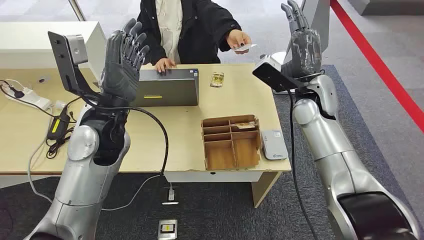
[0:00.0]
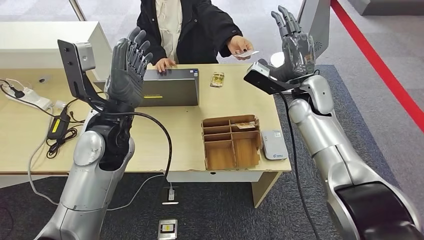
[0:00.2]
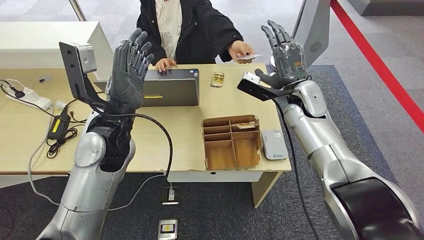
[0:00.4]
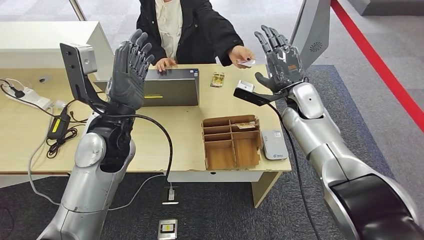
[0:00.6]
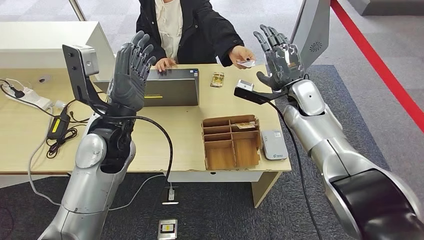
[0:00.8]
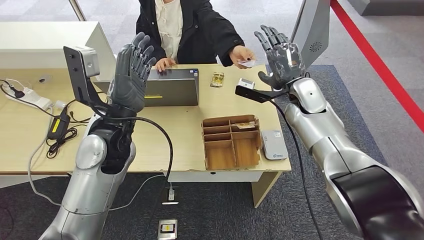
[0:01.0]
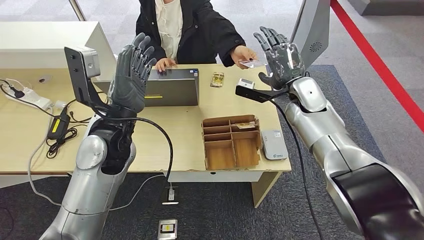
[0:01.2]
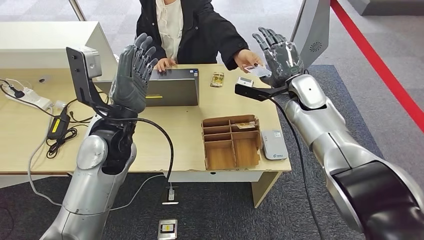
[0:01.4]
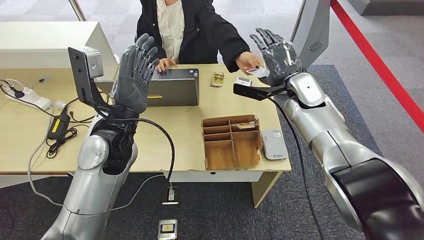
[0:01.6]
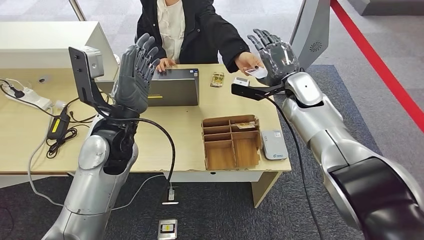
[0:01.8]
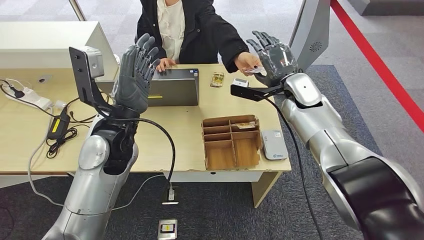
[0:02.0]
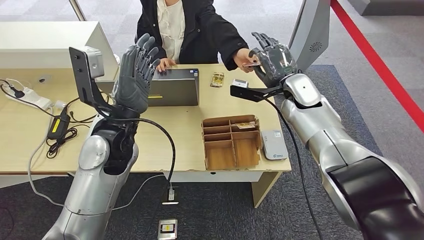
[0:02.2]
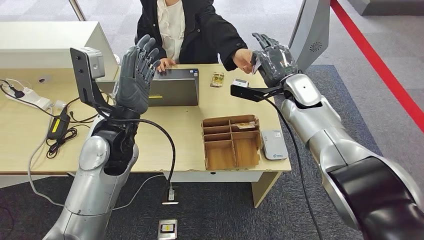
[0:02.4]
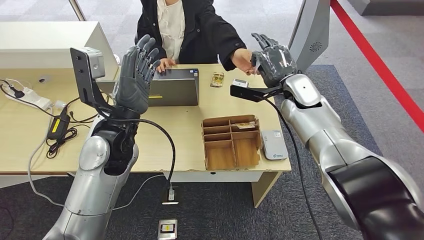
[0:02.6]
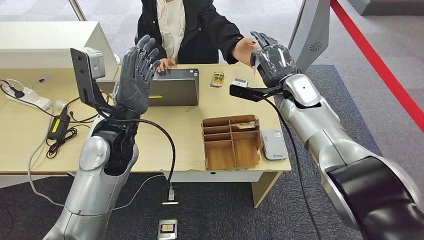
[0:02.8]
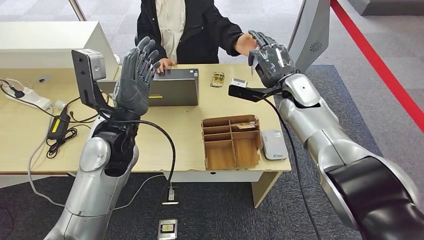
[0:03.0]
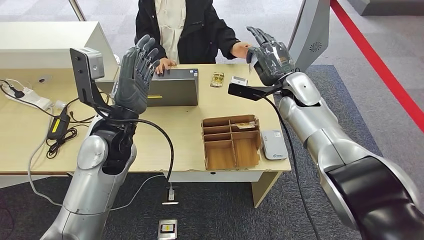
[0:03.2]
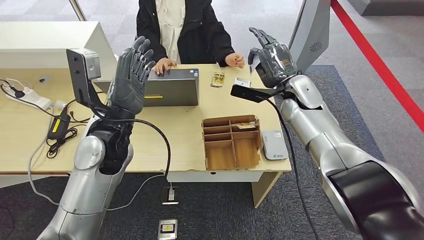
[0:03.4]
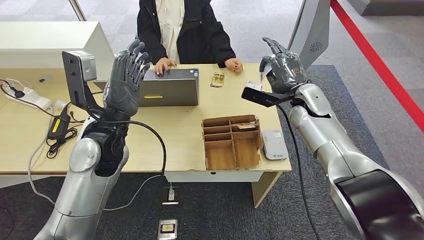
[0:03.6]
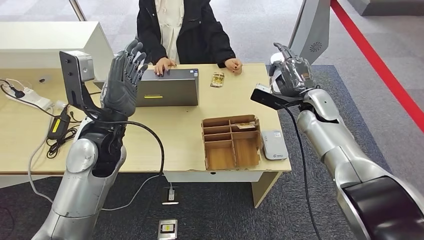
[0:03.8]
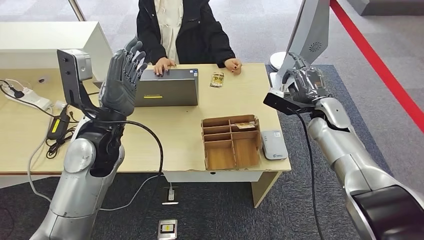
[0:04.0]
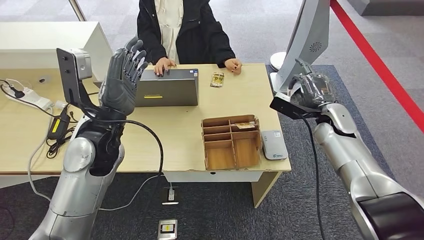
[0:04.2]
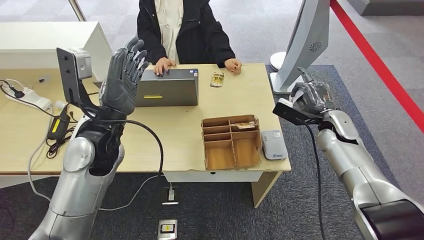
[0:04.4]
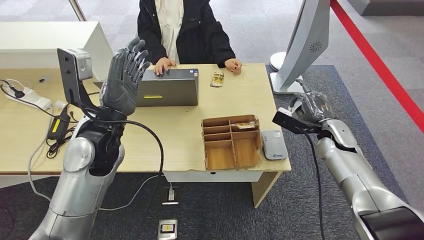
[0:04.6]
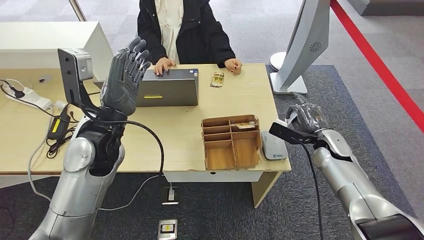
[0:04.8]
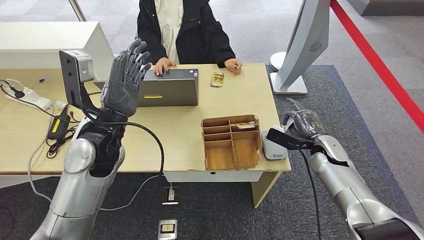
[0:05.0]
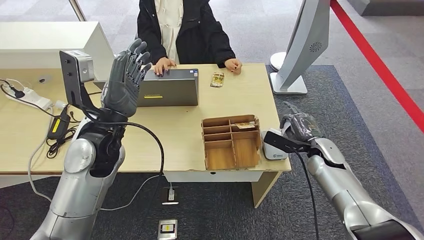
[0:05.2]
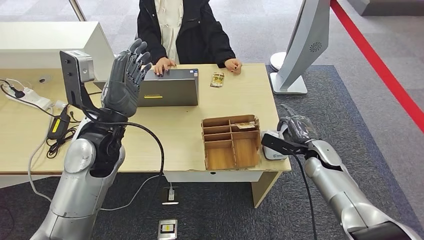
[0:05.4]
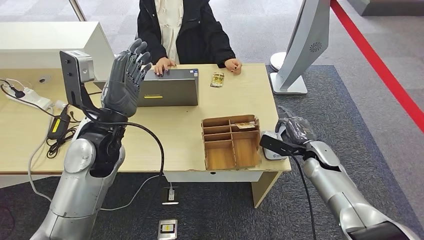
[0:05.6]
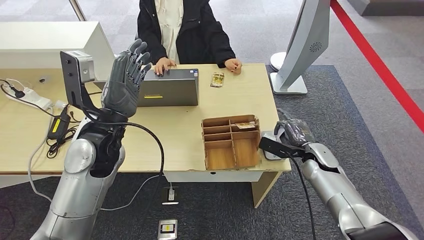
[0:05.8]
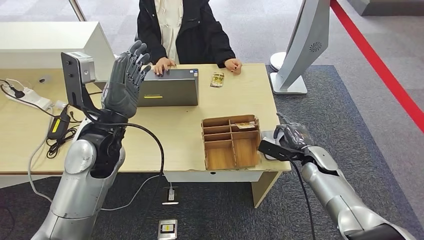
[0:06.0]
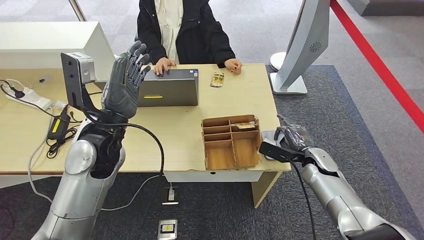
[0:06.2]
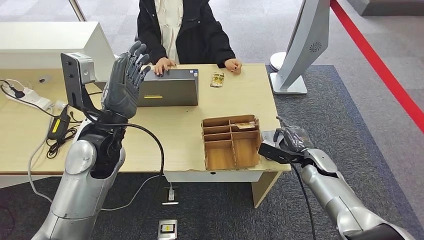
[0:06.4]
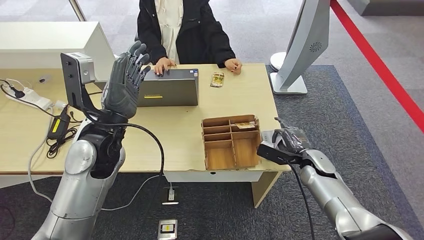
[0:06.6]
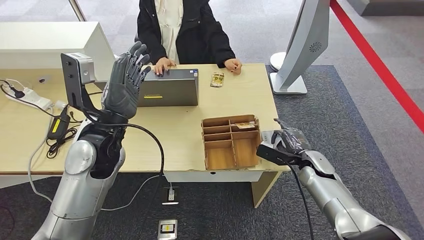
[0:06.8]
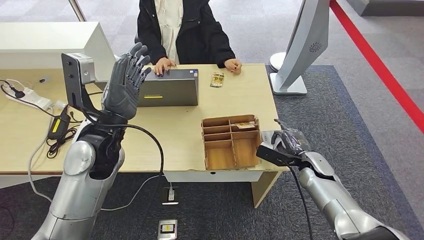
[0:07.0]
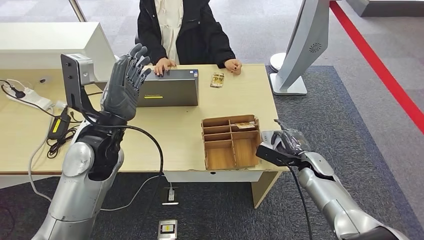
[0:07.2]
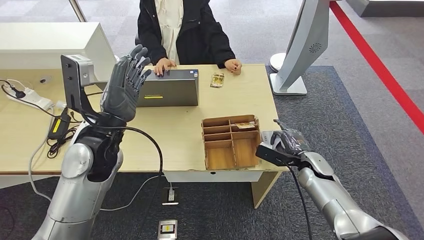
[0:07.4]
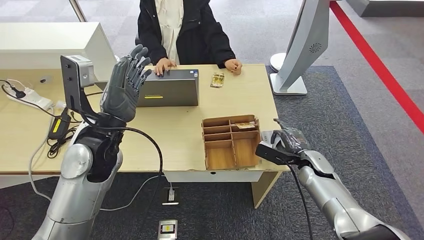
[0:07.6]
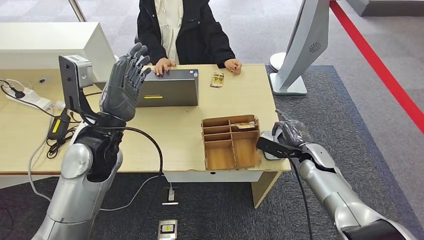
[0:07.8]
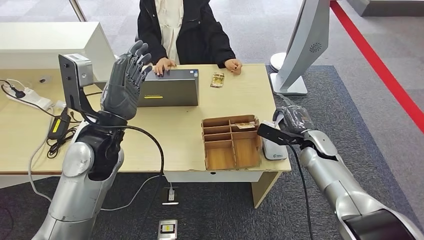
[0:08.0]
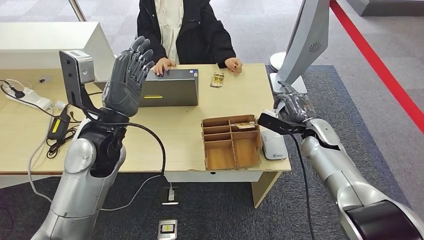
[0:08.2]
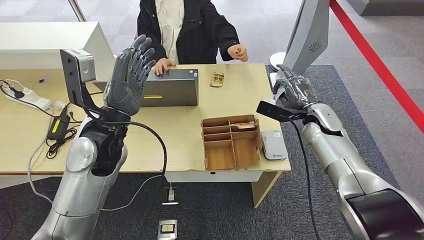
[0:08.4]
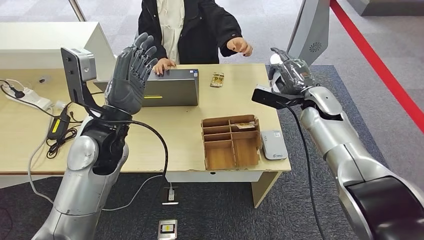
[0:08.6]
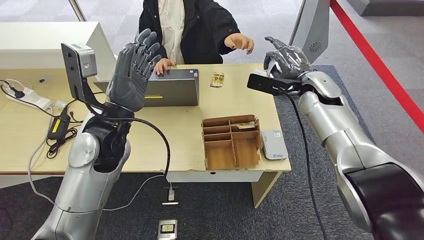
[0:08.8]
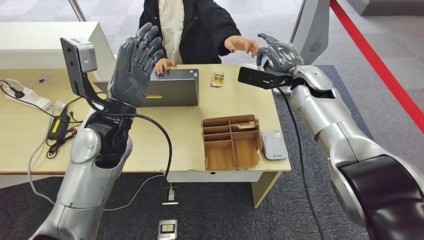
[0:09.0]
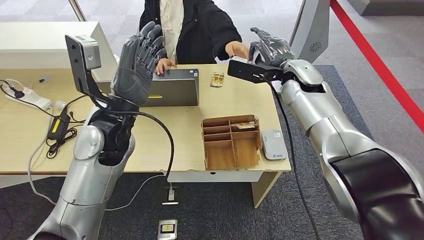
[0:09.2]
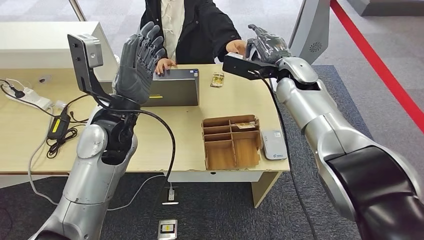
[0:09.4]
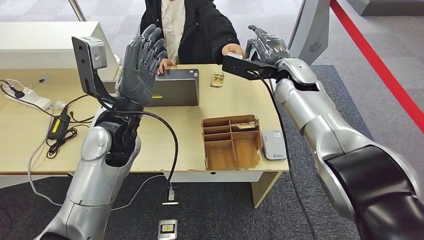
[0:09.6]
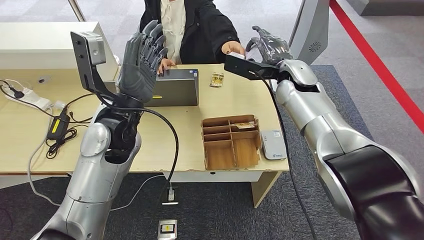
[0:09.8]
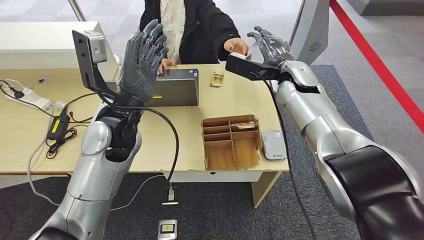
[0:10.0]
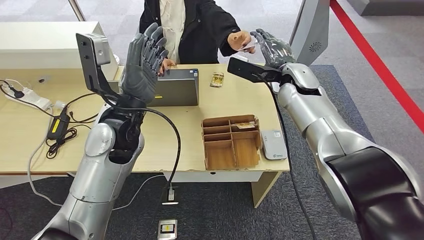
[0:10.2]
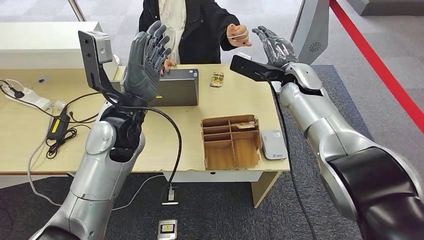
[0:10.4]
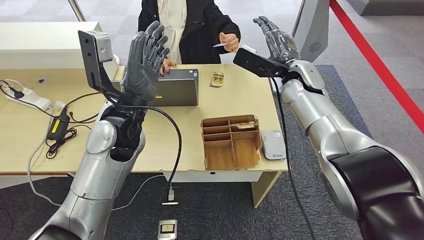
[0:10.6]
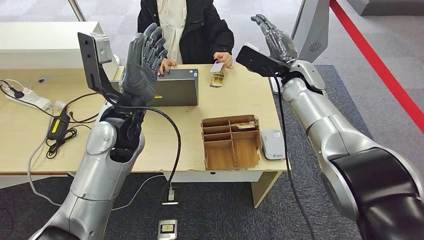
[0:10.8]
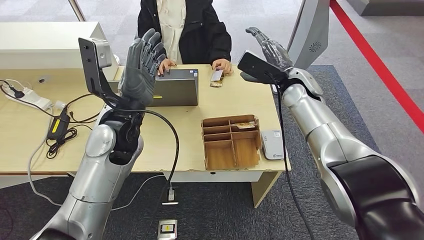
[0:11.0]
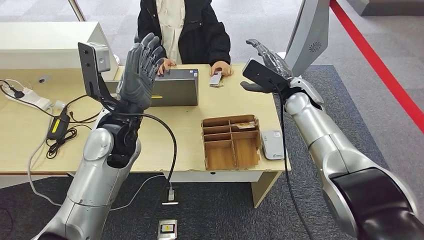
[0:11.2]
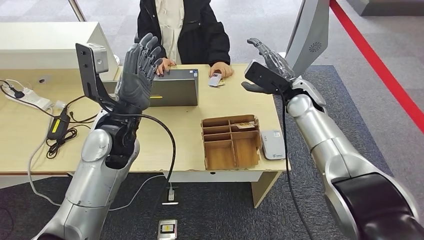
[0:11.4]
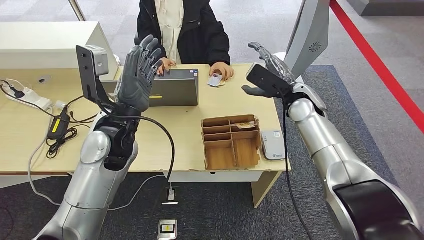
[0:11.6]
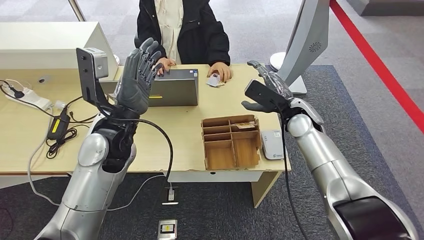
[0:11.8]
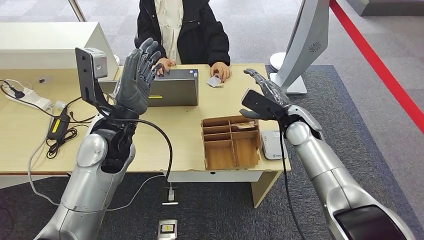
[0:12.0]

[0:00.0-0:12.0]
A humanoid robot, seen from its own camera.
Step, 0:00.0 to 0:03.8: Take the ID card from the person's hand.
Step, 0:04.0 to 0:08.0: Place the ID card on the card reader.
Step, 0:08.2 to 0:10.8: Hand the ID card to the person.
0:01.6 to 0:03.0: The hands make only small movements.
0:04.4 to 0:06.0: The right hand is displaced downward by some 10 cm.
0:06.0 to 0:07.6: There are only small adjustments of the hands.

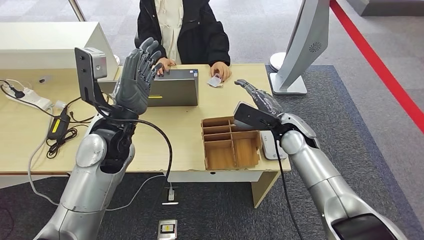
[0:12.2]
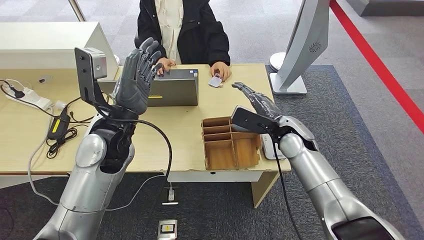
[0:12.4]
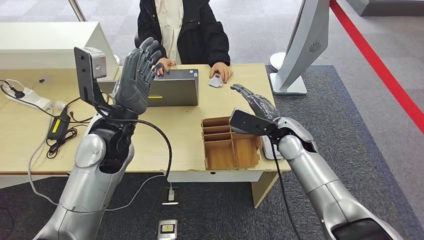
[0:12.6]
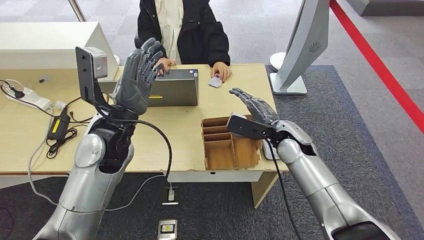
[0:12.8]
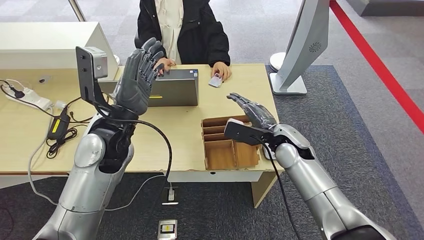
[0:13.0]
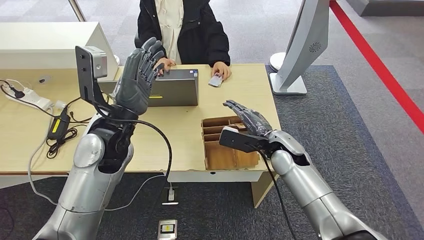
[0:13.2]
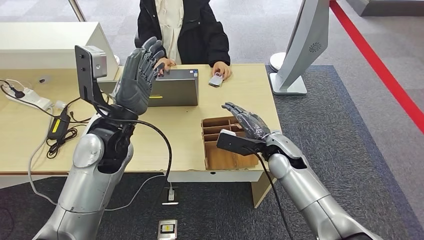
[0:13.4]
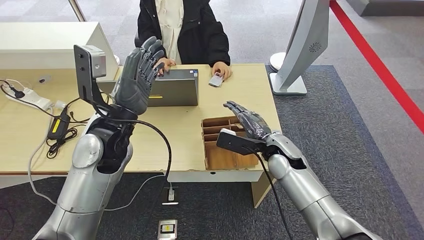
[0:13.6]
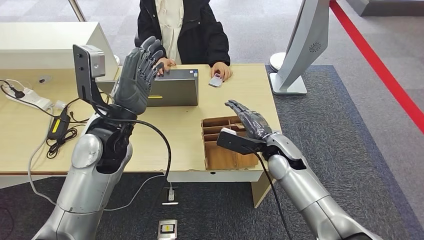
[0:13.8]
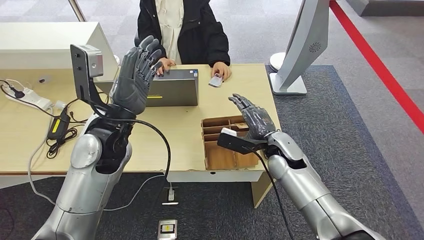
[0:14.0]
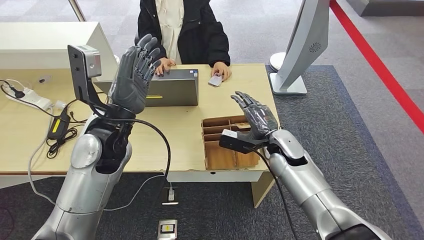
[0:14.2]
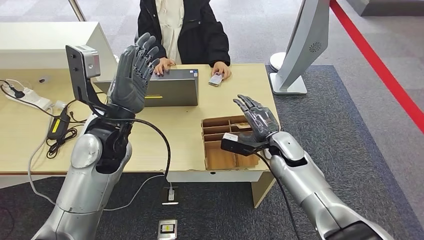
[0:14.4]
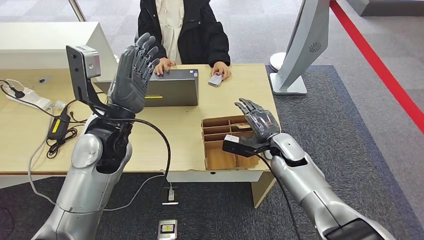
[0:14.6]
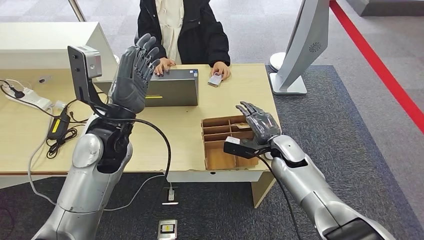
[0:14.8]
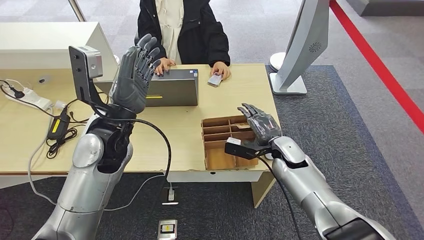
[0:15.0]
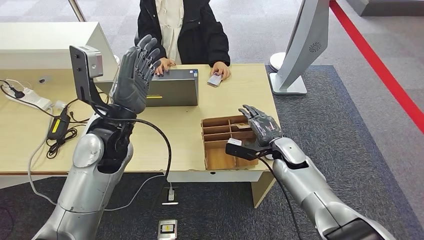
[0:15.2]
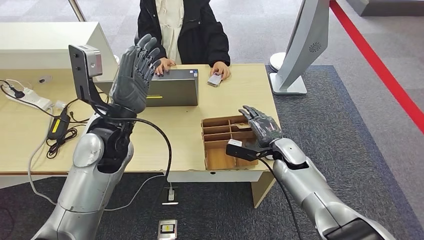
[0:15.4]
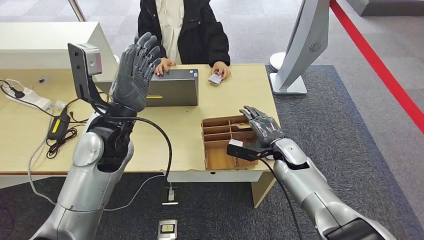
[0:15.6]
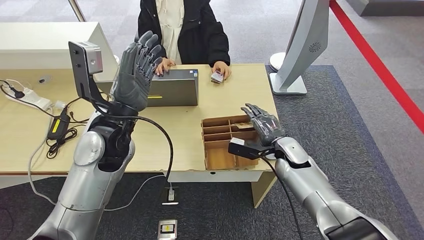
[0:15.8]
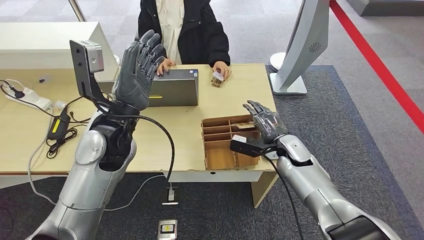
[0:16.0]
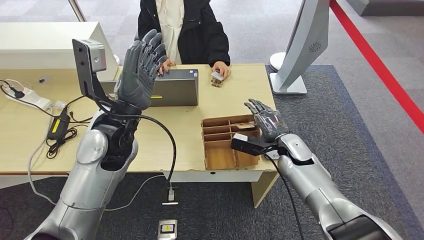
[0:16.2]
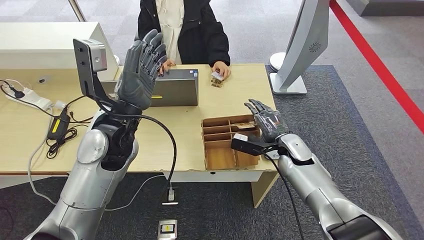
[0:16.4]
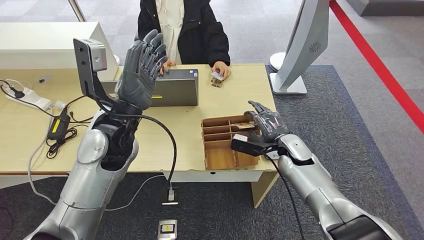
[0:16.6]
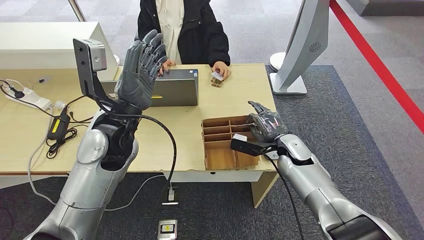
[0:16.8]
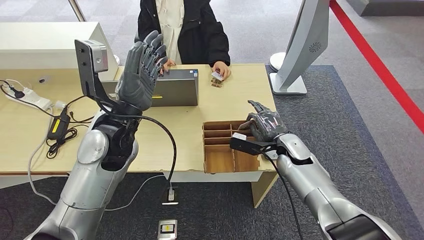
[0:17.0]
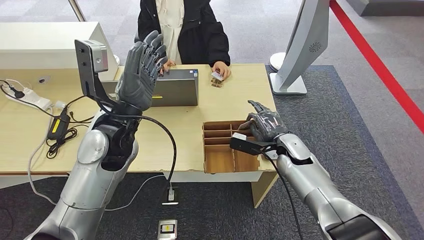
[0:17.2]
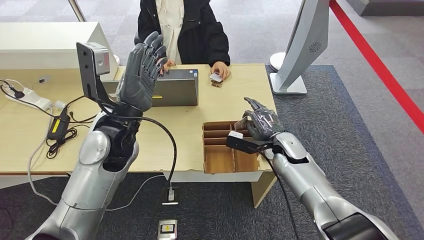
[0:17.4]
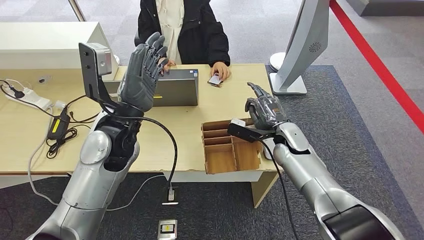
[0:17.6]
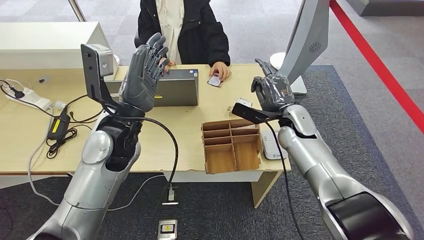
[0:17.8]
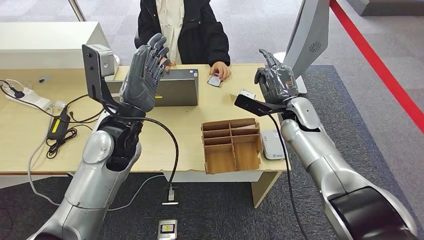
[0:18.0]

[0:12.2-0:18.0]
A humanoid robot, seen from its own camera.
Step, 0:16.2 to 0:18.0: Pick up the room key from the key card box.
0:12.2 to 0:13.6: The right hand ends up roughly 5 cm from where it was.
0:13.6 to 0:15.0: The right hand ends up roughly 5 cm from where it was.
0:15.0 to 0:16.6: The hands move only a little.
0:16.6 to 0:18.0: The right hand travels upward by some 10 cm.
